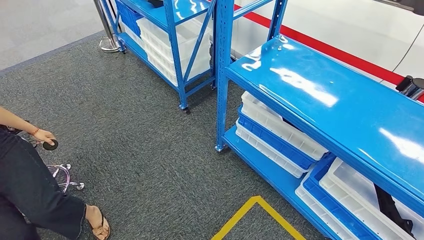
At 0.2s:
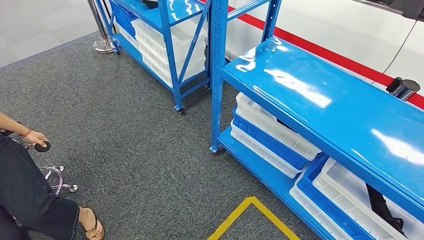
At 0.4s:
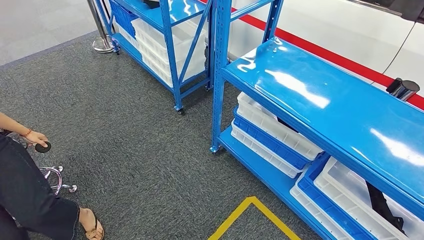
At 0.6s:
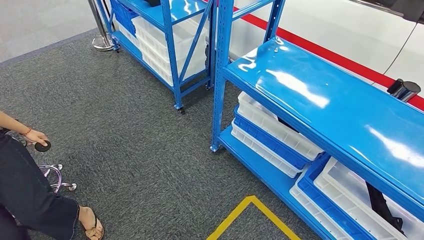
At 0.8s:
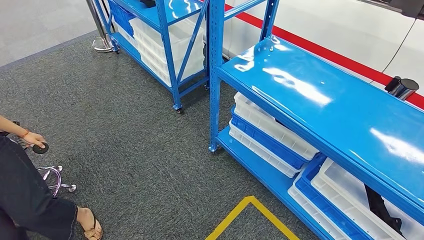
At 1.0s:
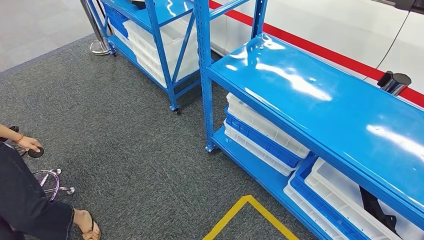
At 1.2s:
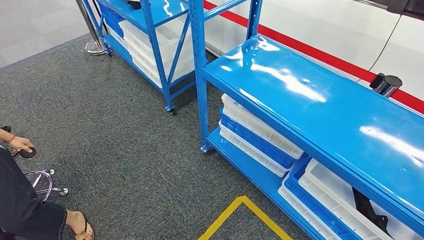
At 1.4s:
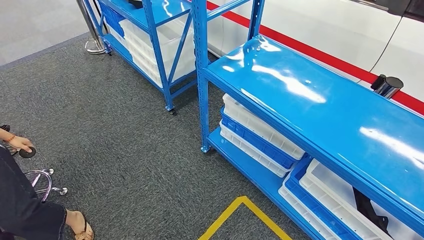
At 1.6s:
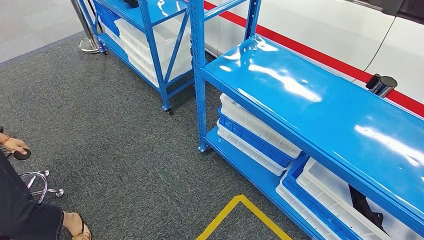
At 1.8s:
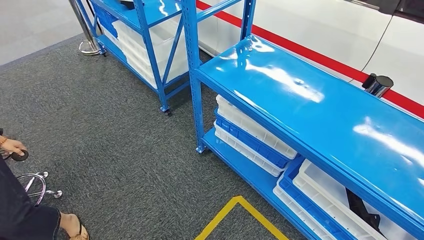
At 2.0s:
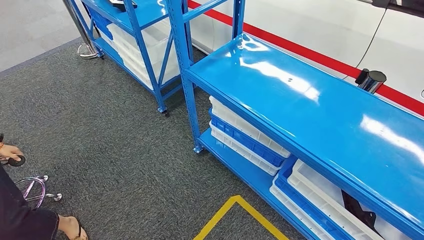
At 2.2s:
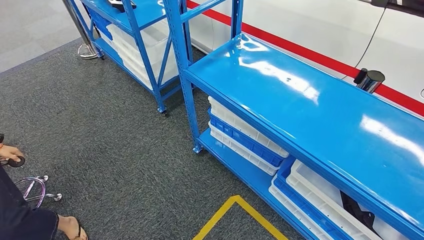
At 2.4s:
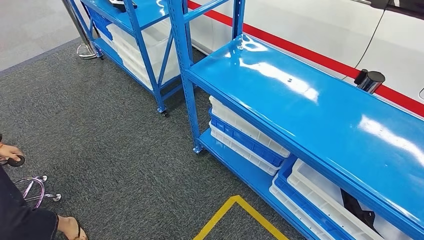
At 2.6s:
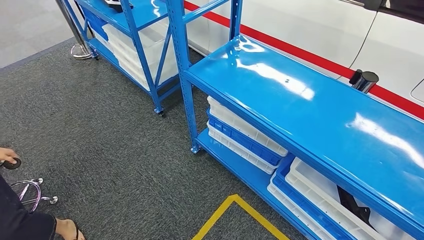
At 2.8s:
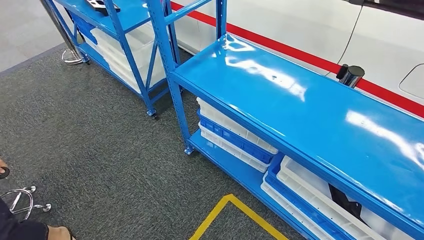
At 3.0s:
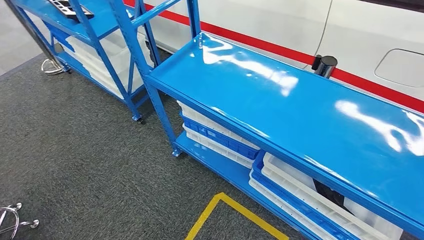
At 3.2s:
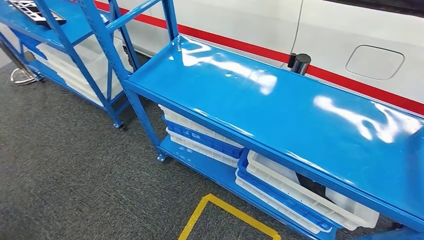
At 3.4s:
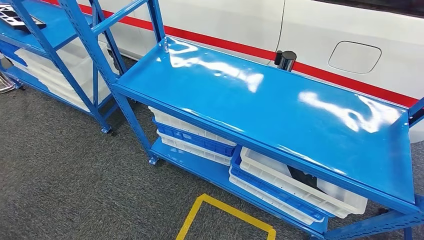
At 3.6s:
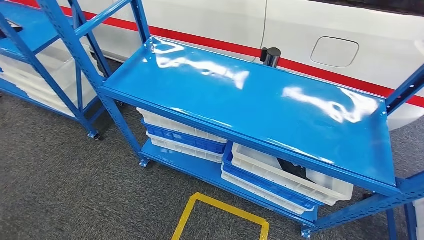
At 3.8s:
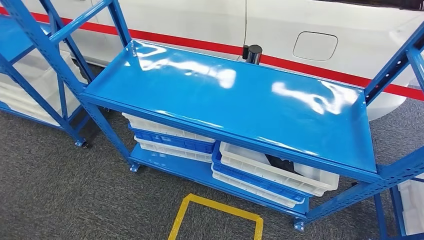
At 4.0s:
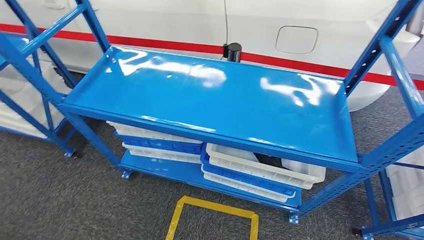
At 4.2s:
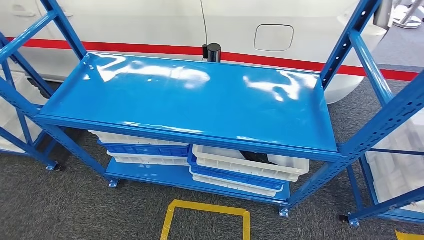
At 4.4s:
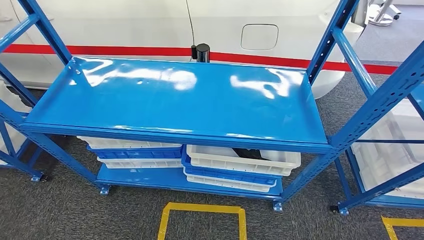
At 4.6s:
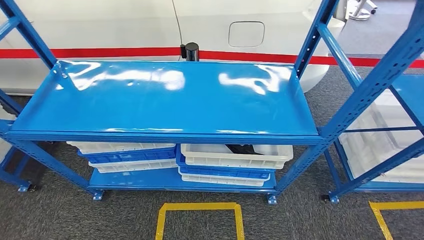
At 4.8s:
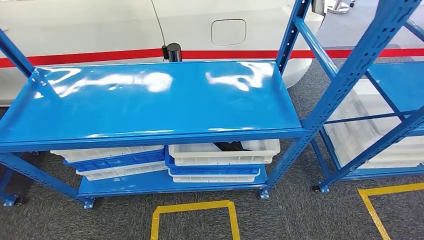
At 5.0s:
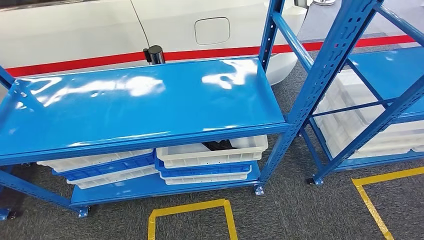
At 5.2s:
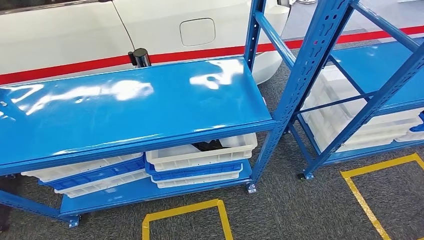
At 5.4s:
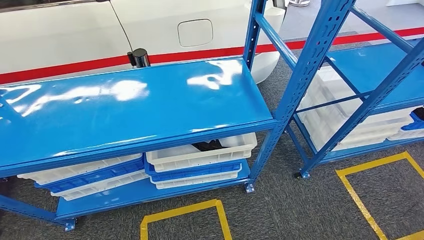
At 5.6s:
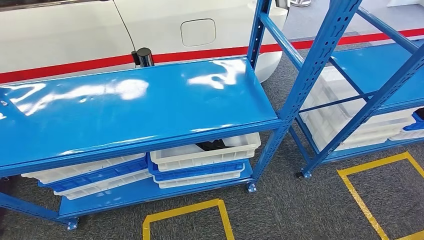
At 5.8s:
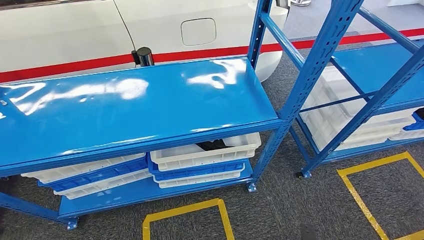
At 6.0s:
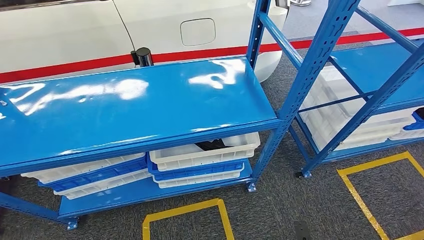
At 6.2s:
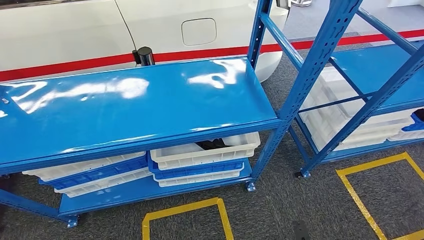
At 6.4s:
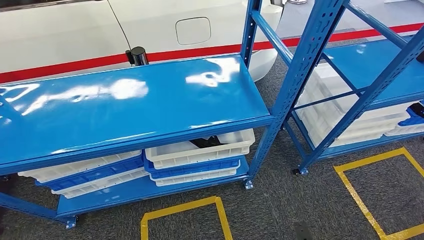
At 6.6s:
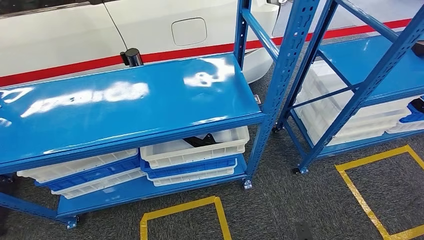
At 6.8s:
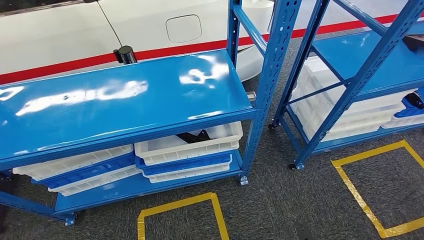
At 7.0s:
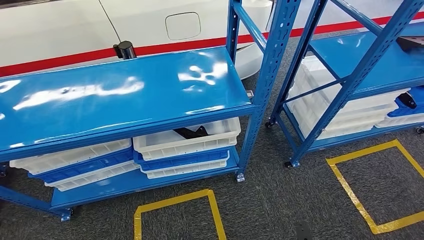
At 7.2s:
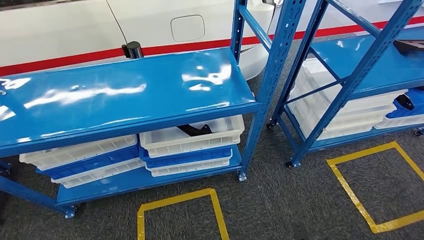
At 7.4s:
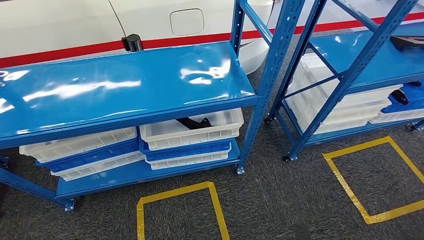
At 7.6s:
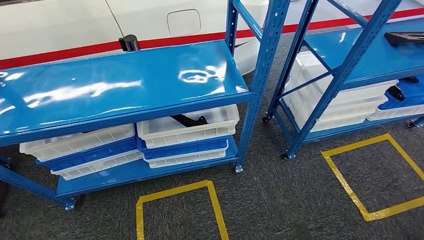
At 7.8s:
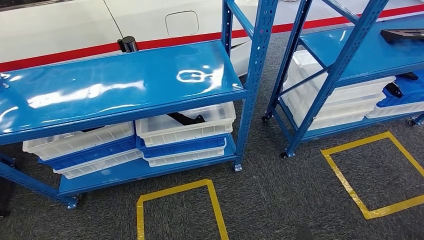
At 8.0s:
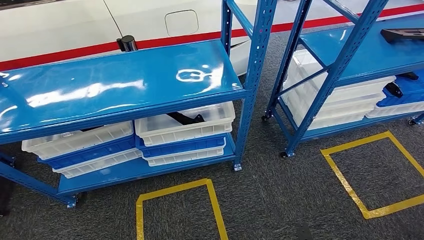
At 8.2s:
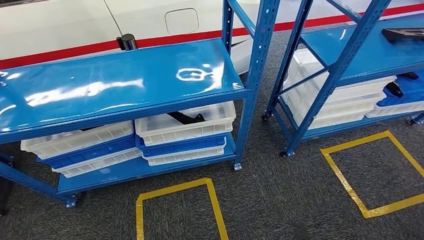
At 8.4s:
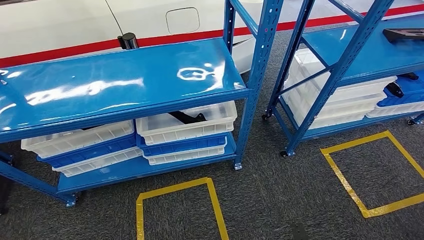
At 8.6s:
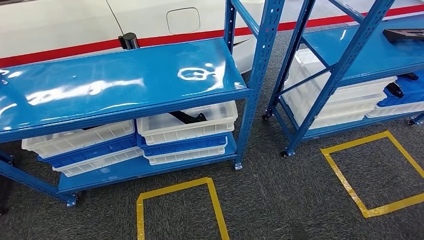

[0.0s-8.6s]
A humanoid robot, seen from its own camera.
Step, 0.0s to 8.6s: Move to the initial position of the shelf.

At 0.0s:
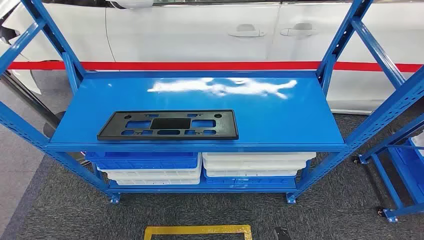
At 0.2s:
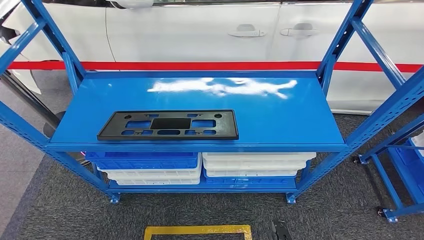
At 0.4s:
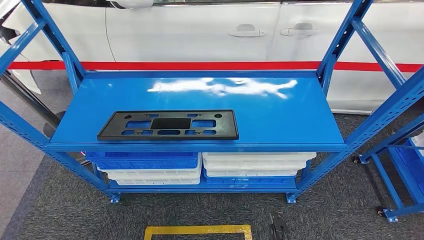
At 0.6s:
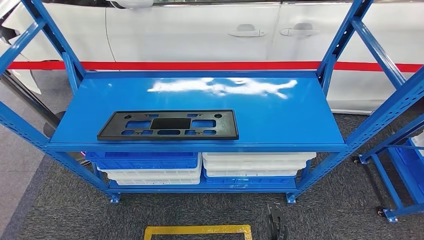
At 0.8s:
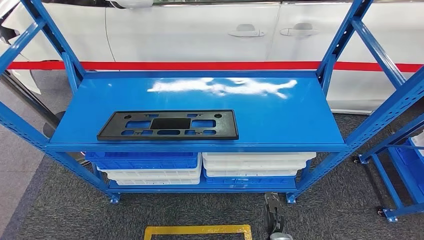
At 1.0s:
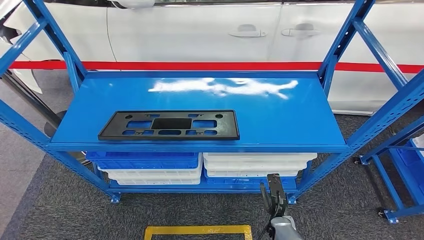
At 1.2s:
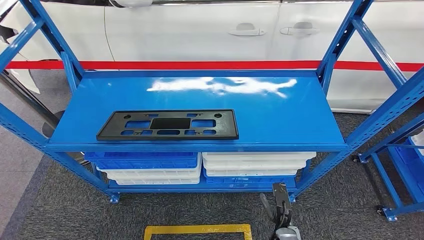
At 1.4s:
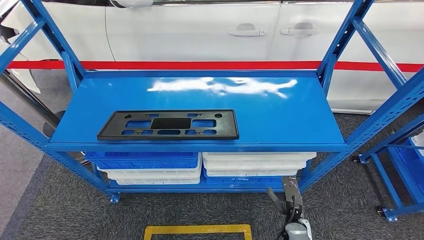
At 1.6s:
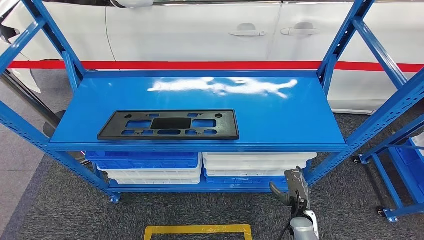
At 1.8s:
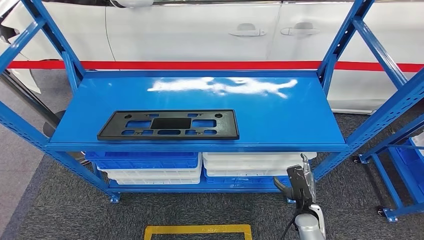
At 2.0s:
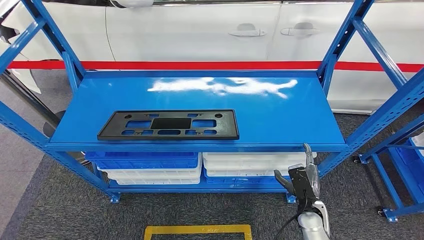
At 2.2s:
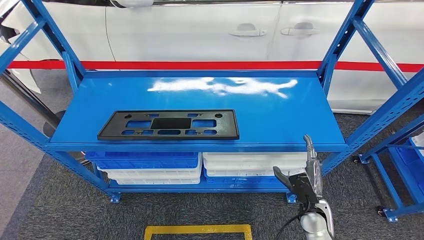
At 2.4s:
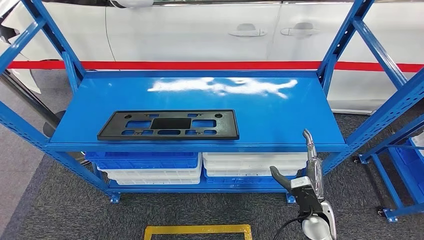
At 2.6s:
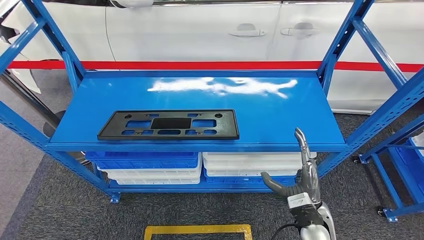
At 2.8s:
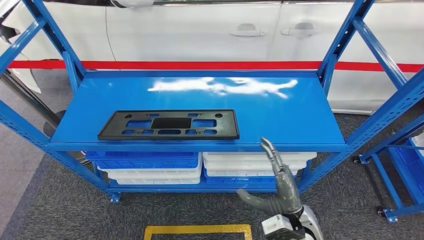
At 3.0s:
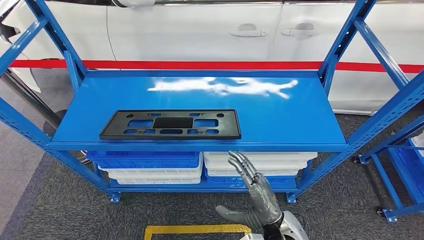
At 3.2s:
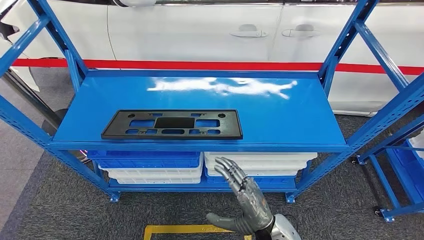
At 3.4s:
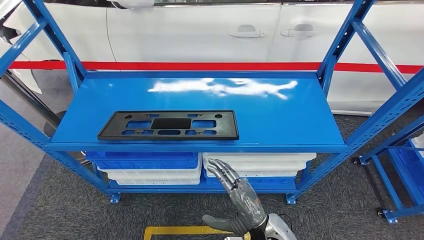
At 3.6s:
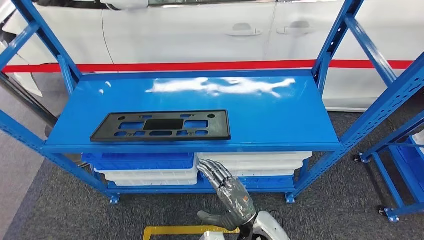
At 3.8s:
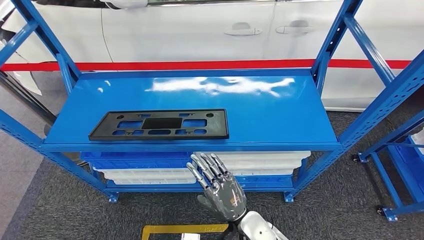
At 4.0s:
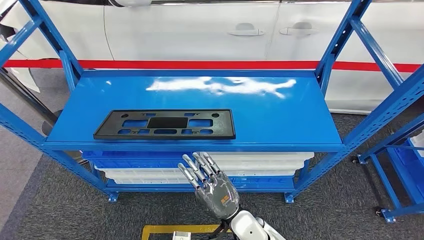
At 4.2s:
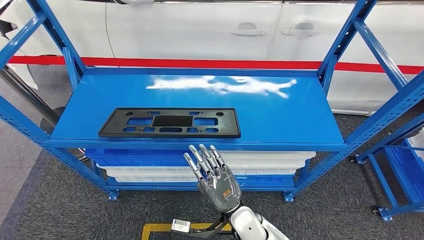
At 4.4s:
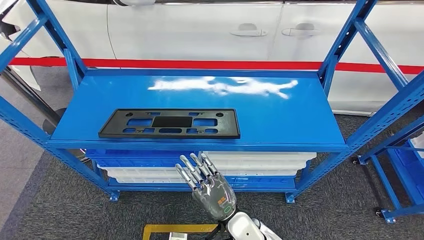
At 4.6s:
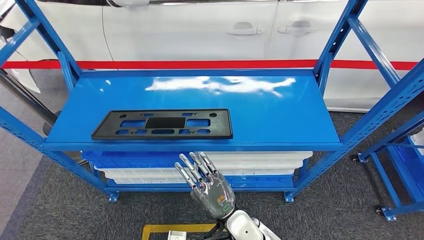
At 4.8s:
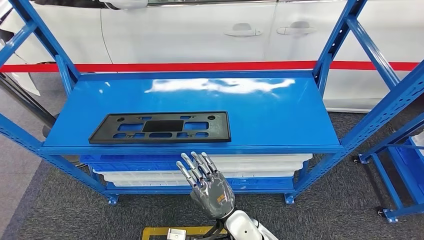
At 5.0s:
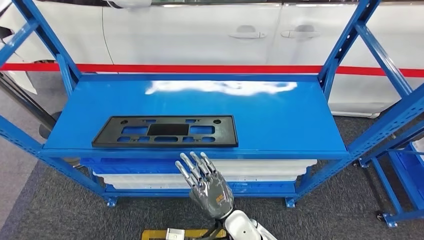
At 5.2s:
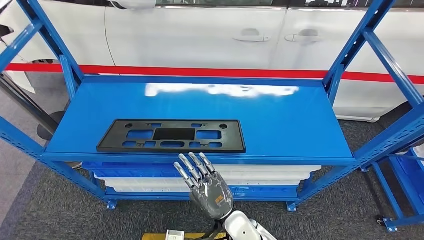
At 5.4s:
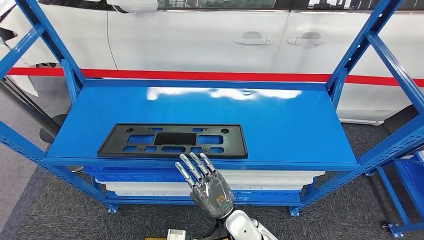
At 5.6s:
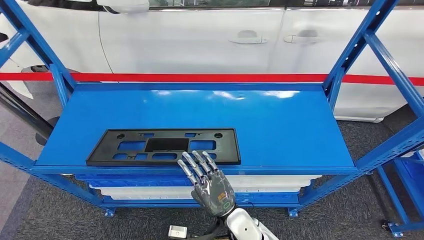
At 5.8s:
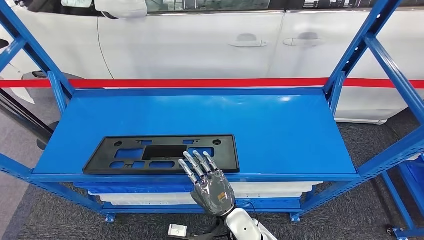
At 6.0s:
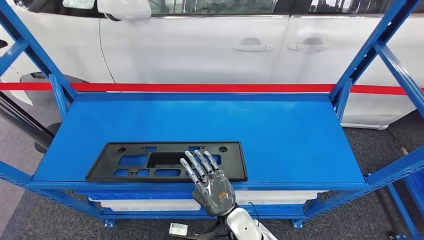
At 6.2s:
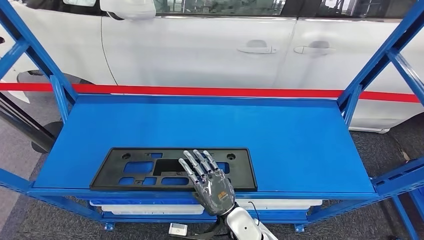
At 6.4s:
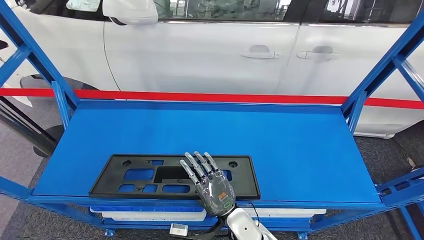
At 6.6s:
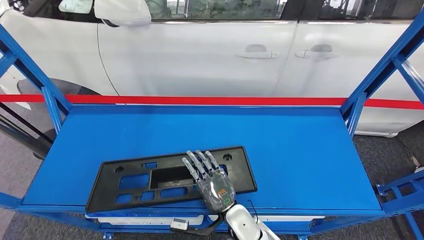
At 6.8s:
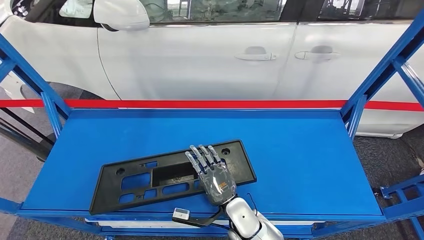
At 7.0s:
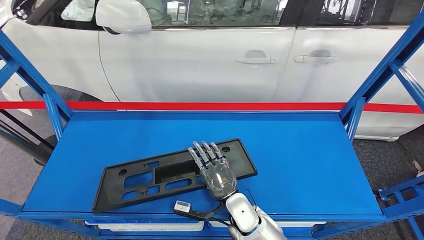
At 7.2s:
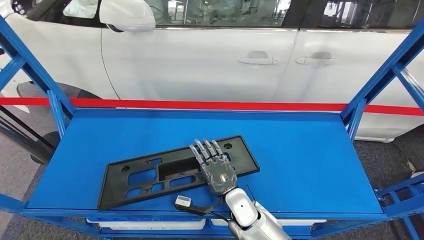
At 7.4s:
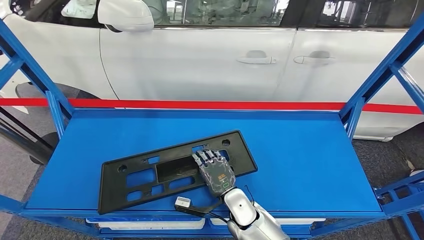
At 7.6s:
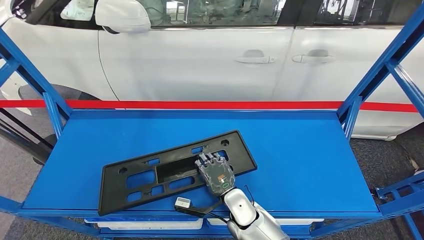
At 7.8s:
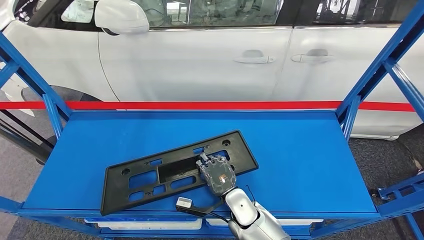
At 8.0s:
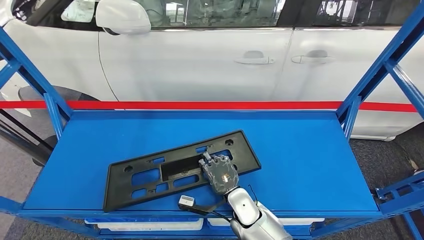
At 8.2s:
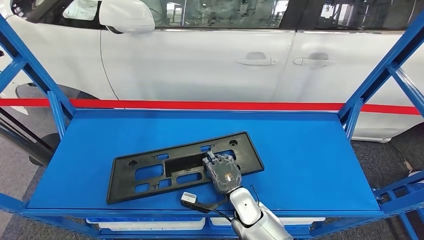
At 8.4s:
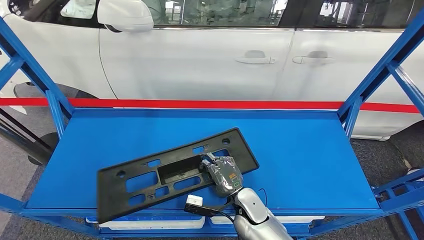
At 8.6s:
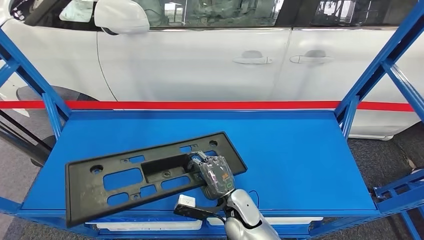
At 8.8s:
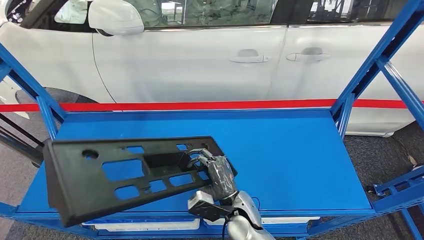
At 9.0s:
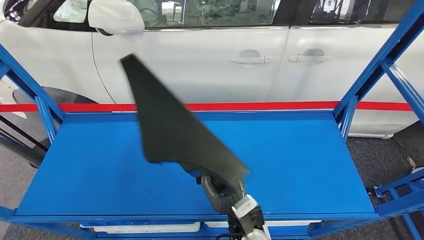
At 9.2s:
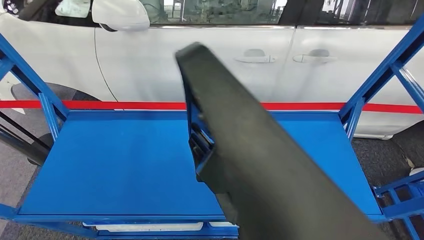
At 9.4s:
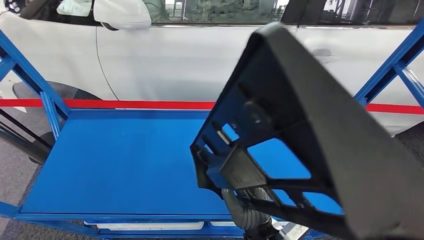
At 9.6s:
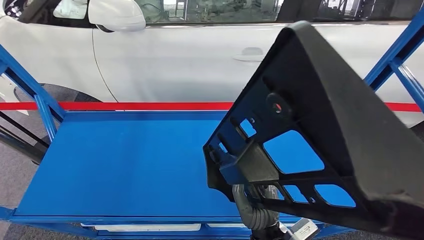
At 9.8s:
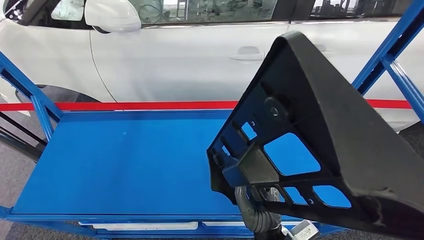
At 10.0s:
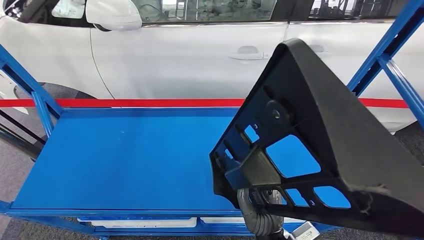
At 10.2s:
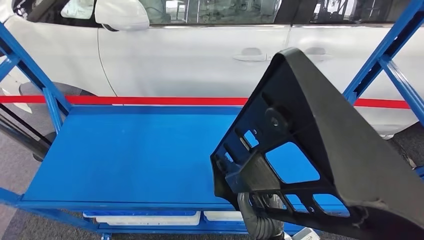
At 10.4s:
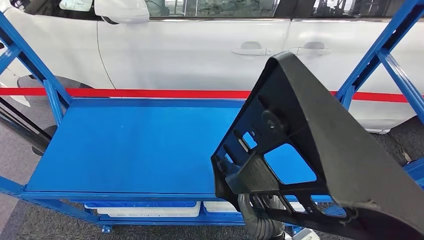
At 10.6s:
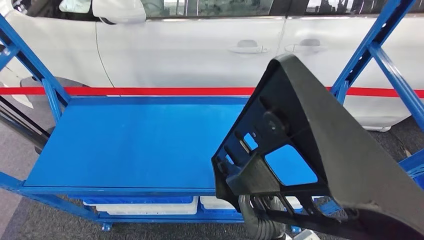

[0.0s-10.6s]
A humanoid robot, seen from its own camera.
Step, 0.0s to 9.8s: Pick up the large material from the shelf.
1.6s to 3.0s: The right hand goes some 15 cm upward and to the left.
